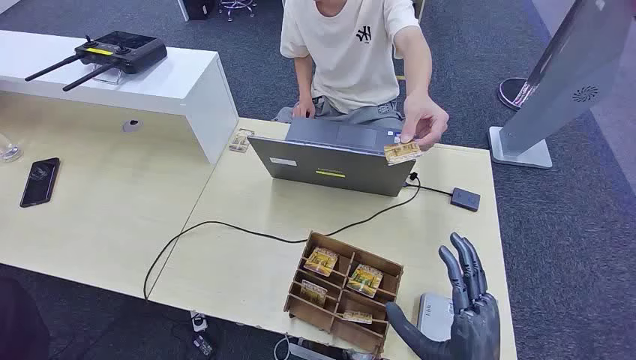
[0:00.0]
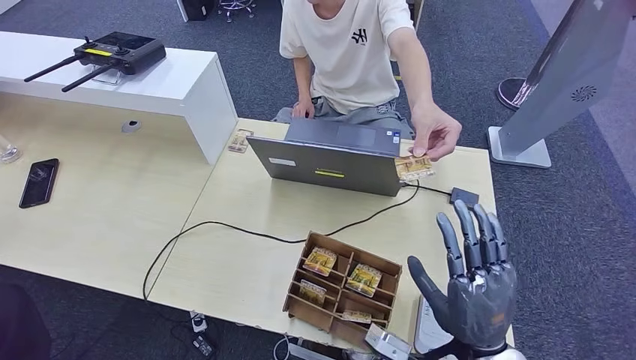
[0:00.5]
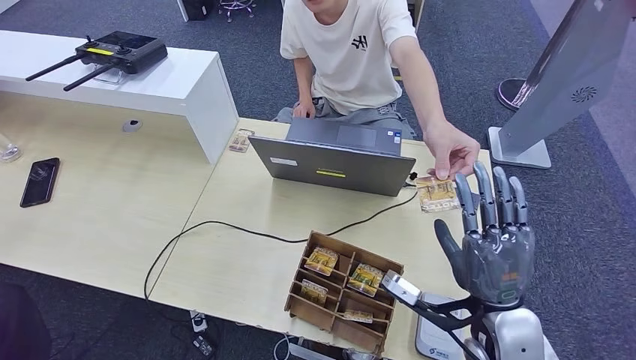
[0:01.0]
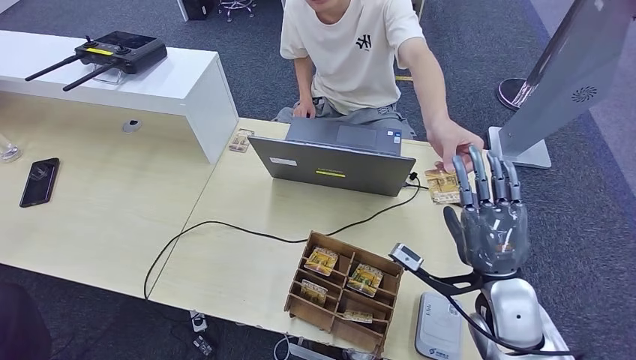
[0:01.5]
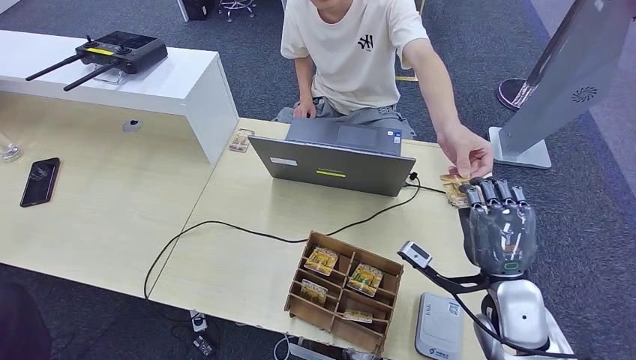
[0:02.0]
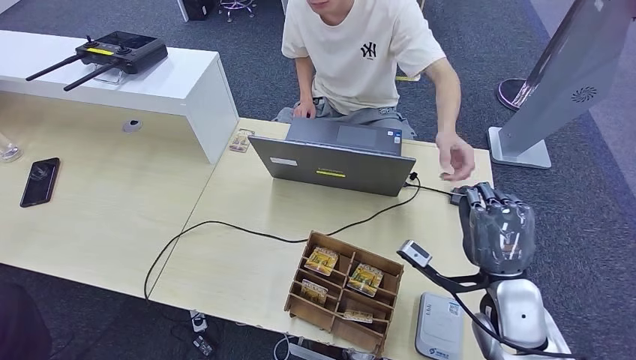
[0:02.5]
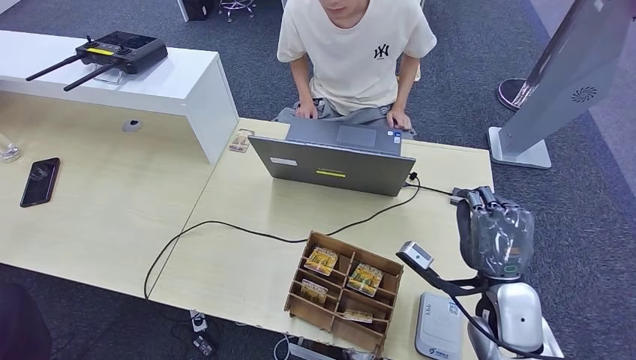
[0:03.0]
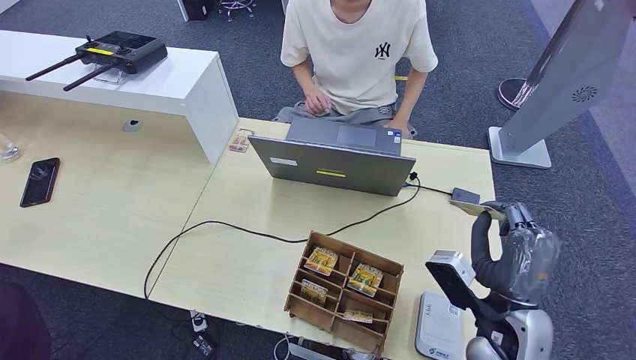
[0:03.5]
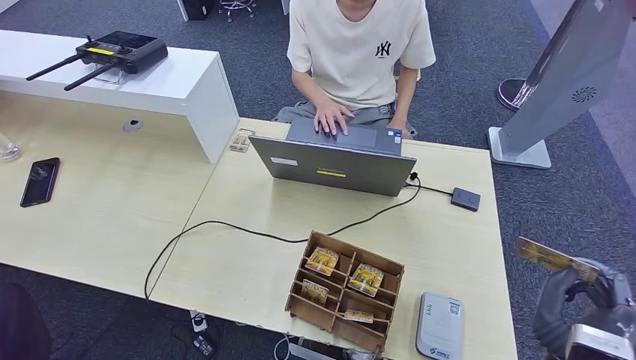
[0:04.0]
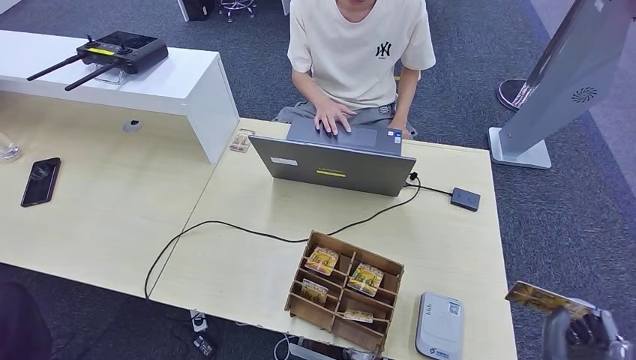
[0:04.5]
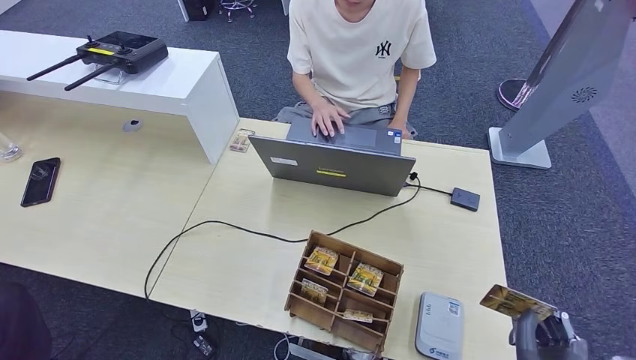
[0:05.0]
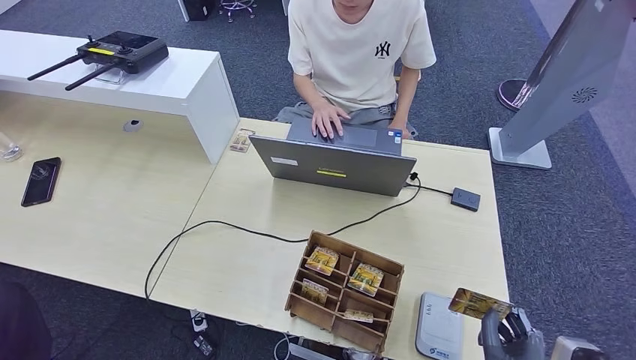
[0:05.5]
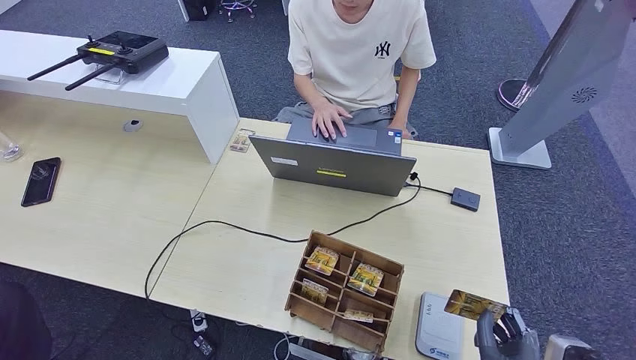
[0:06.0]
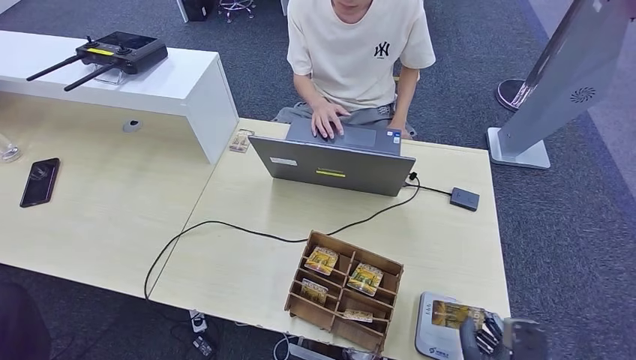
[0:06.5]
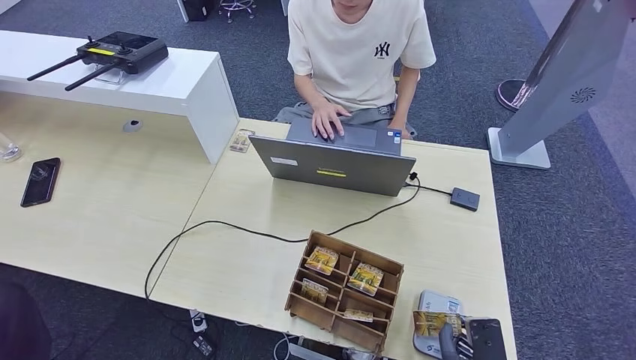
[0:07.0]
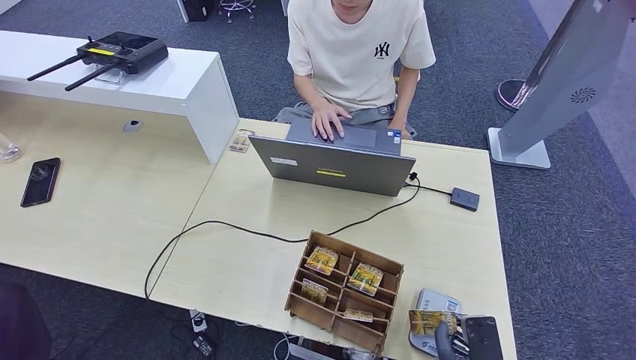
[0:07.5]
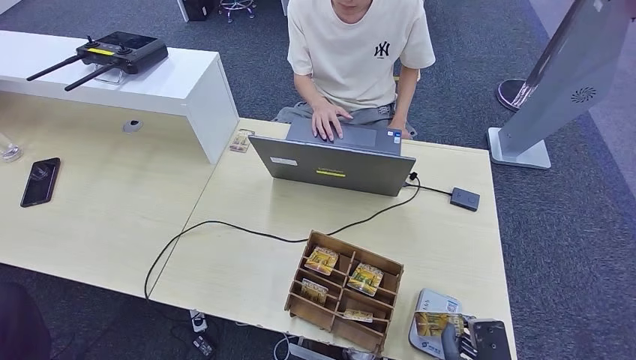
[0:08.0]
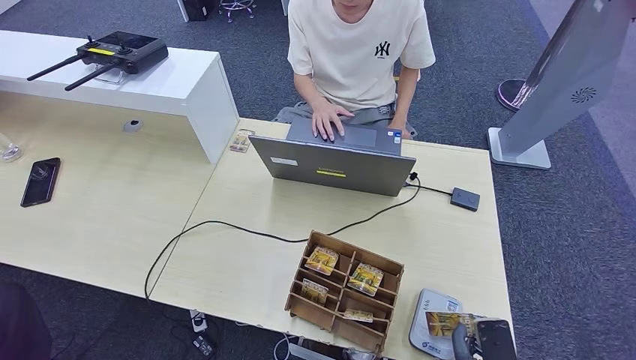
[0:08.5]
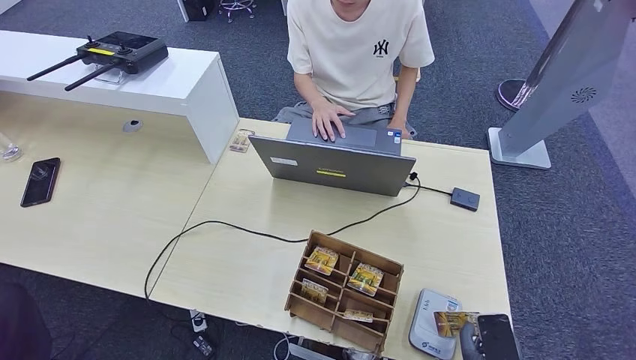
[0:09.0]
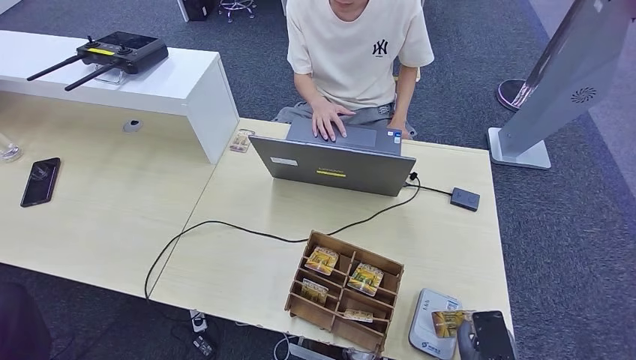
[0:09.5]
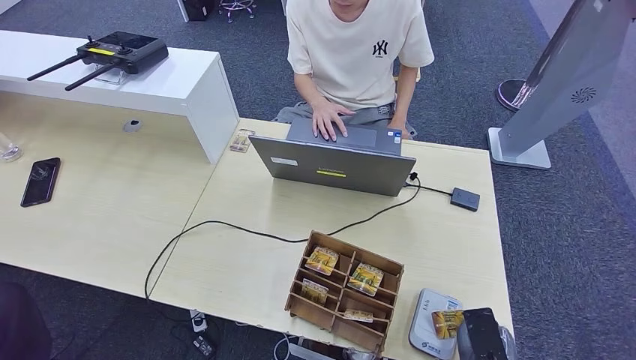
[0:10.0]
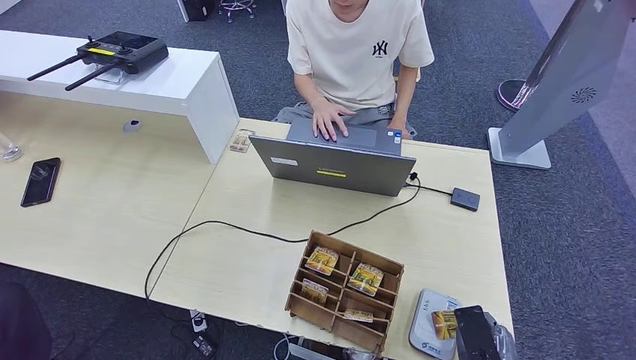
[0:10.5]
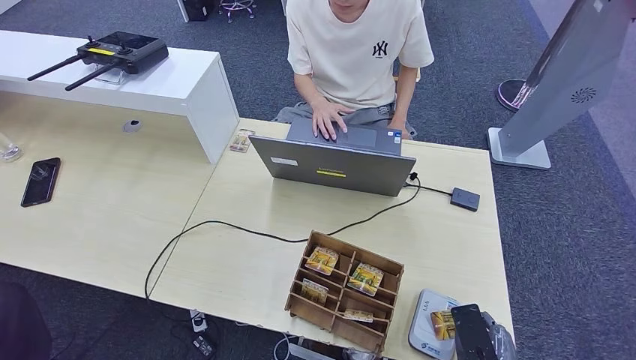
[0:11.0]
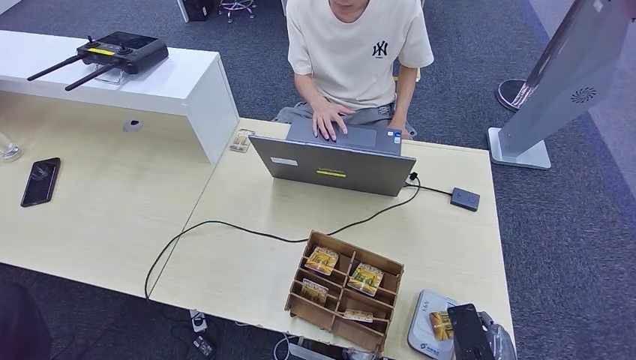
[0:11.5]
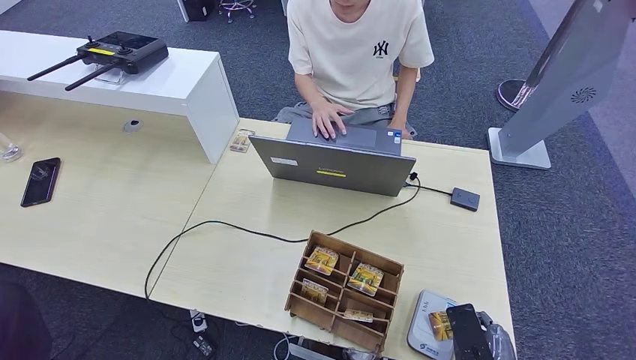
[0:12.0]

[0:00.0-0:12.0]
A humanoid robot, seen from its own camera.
Step, 0:00.0 to 0:03.0: Take the ID card from the person's hand.
0:02.0 to 0:04.0: The right hand is displaced backward by approximately 10 cm. Meanwhile the left hand moves to the right, roughly 5 cm.
0:04.0 to 0:06.0: The right hand heads downward and backward, covering approximately 10 cm. The left hand moves about 5 cm.
0:08.0 to 0:10.0: The hands make only small movements.
0:10.0 to 0:12.0: The hands move only a little.

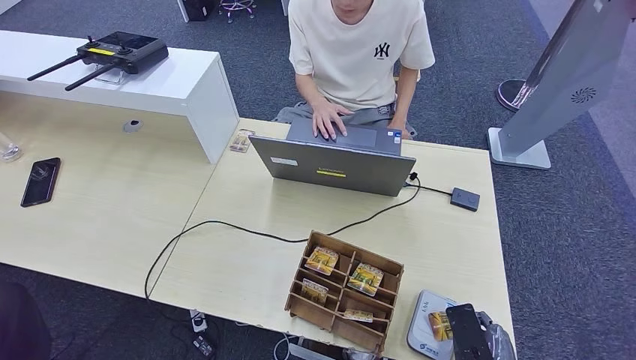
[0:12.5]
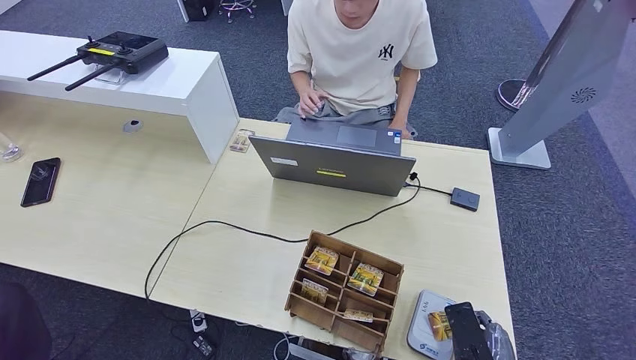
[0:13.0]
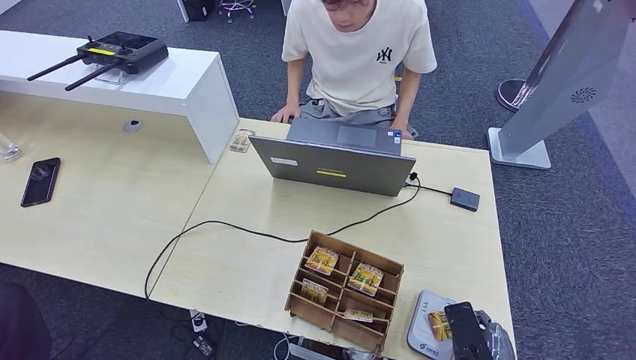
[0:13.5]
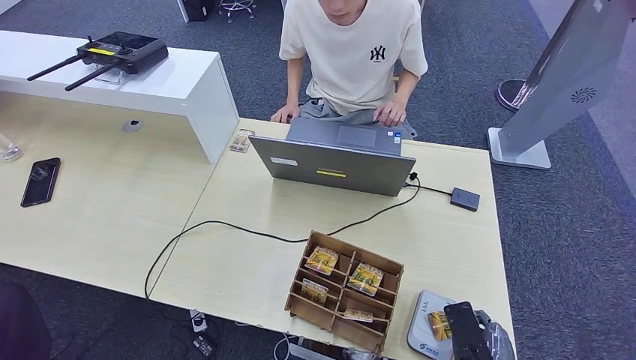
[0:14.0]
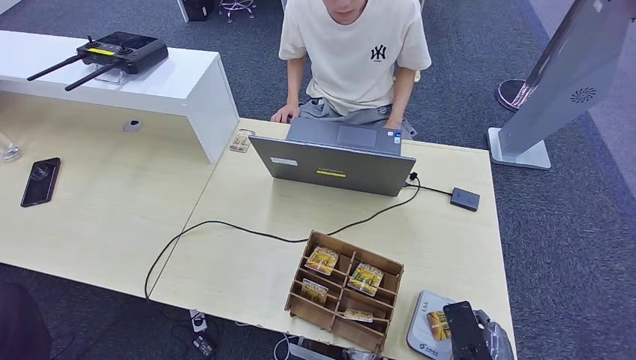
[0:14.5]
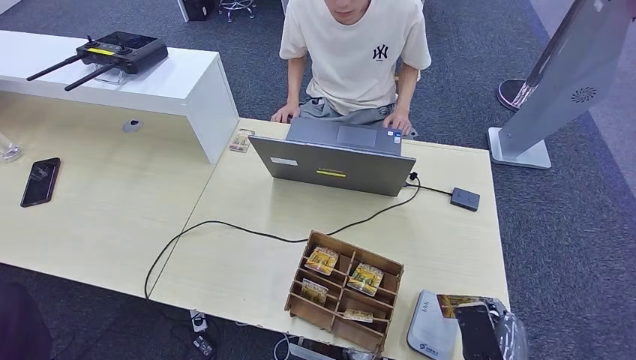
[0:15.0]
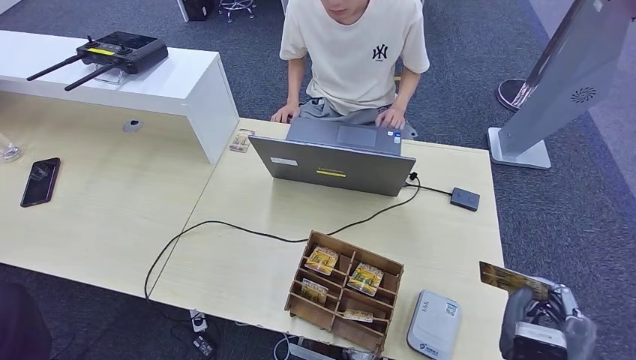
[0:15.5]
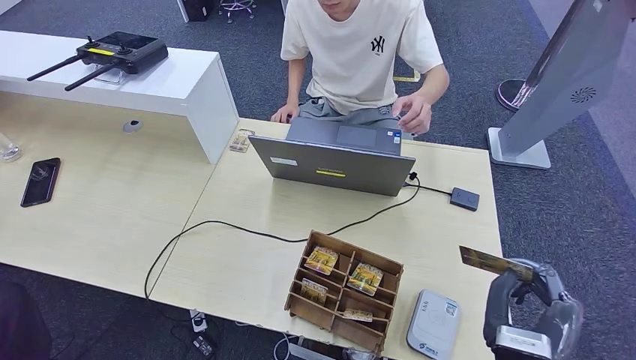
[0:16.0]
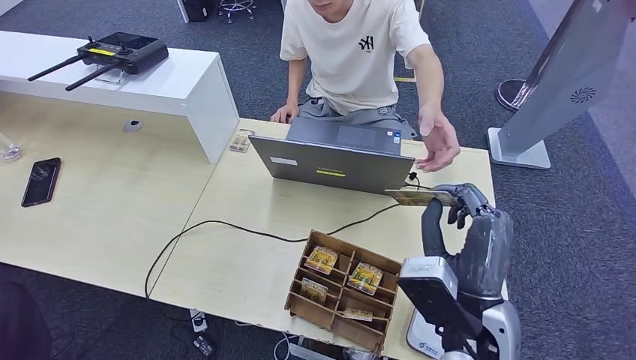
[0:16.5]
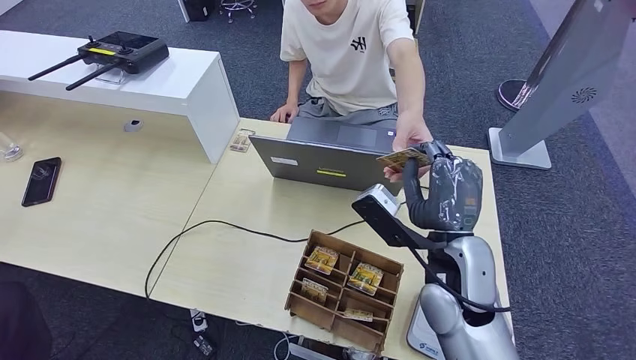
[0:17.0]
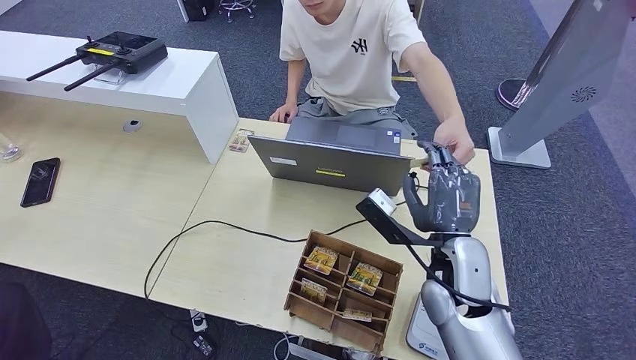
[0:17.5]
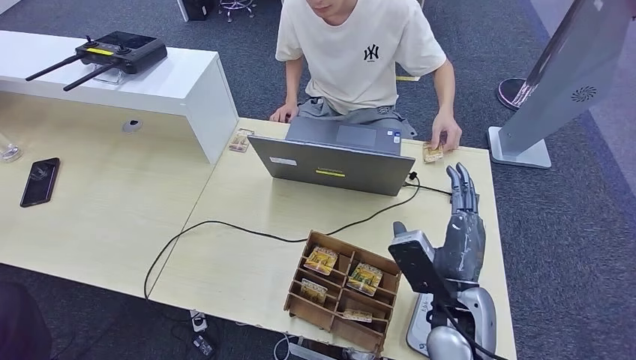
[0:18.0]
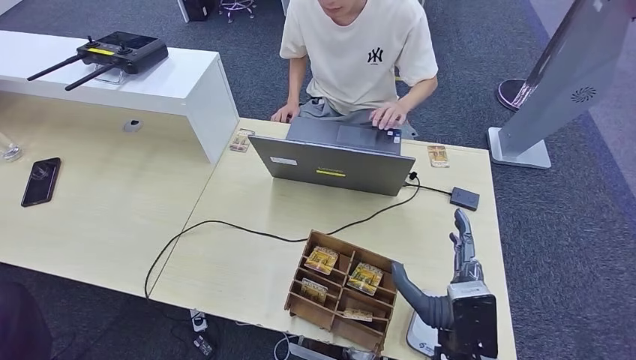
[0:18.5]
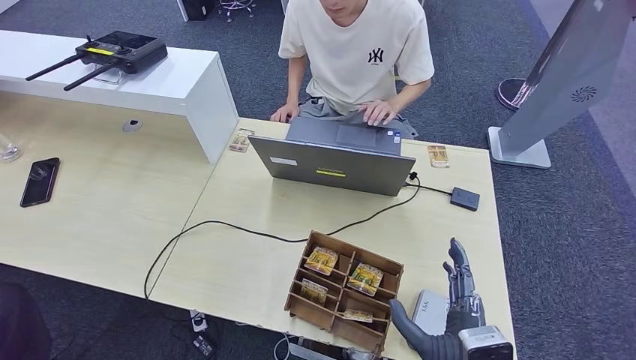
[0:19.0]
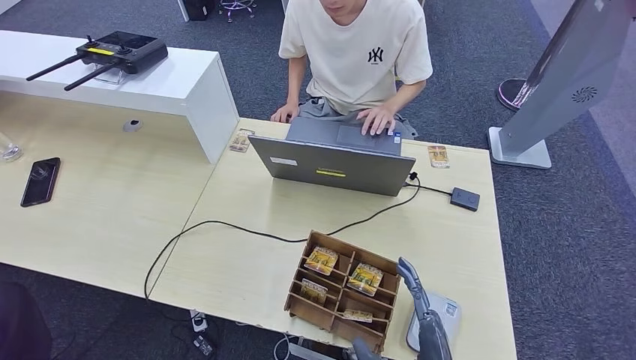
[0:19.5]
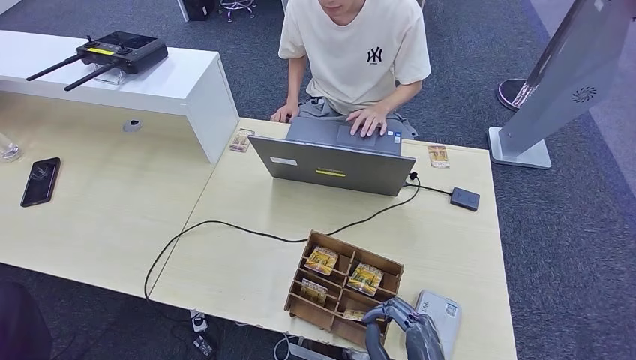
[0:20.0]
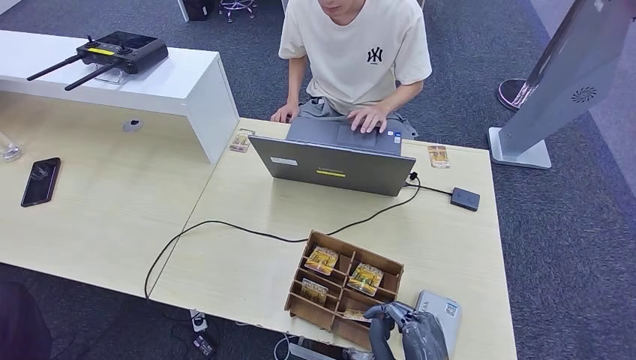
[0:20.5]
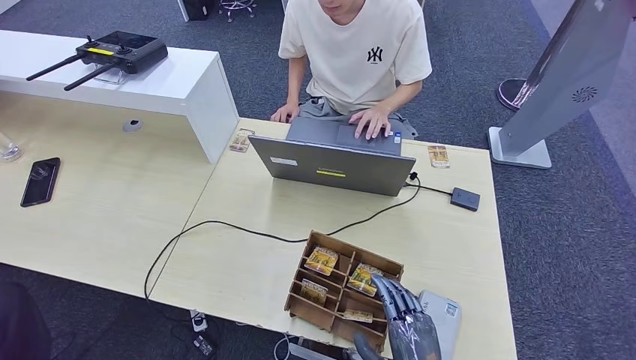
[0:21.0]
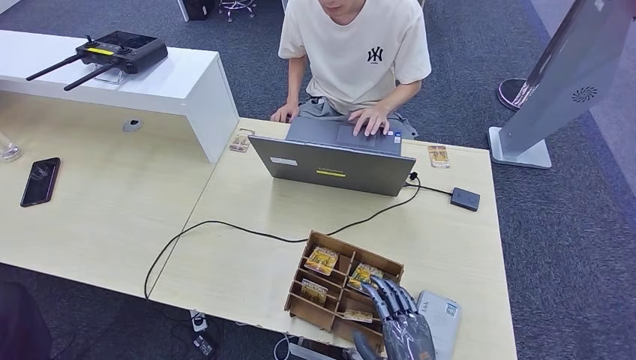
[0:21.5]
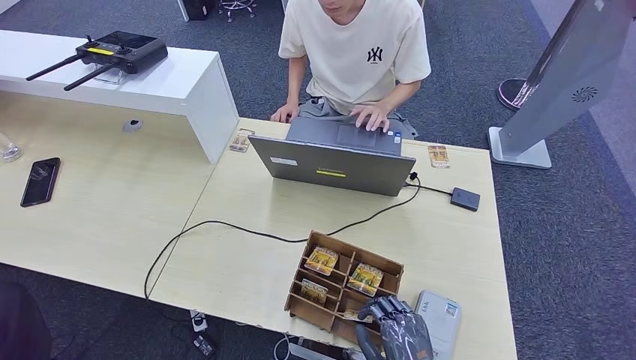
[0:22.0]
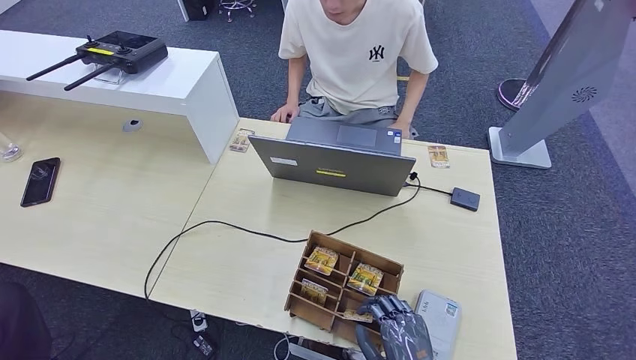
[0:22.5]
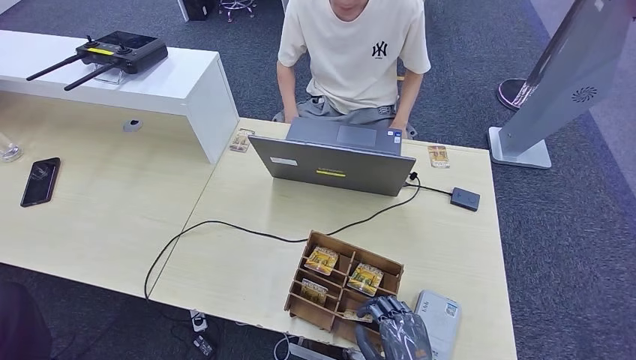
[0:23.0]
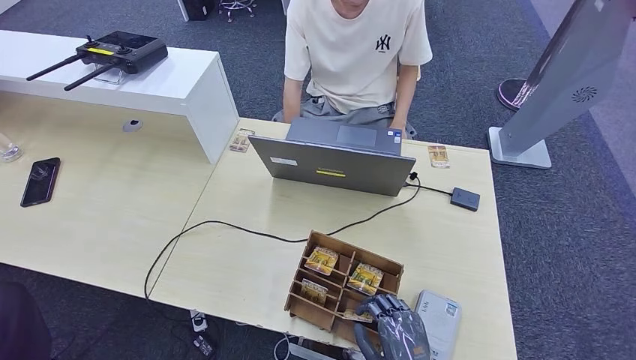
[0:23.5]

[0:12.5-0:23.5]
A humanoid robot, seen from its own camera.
Step, 0:12.5 to 0:15.0: Place the ID card on the card reader.
Step, 0:15.5 to 0:18.5: Hand the ID card to the person.
0:12.5 to 0:14.5: Both hands stay put.
0:14.5 to 0:16.0: The right hand is displaced upward by about 10 cm.
0:16.0 to 0:18.0: The right hand is displaced forward by approximately 10 cm. The left hand heads forward, covering some 5 cm.
0:18.0 to 0:20.0: The right hand travels backward by roughly 15 cm.
0:21.5 to 0:23.5: Both hands stay put.
